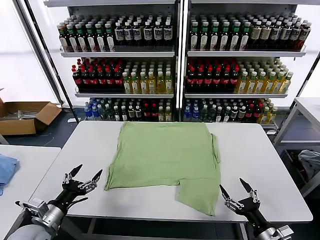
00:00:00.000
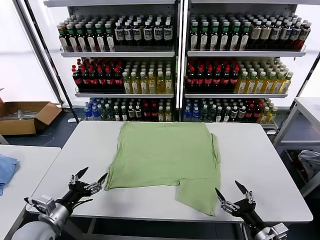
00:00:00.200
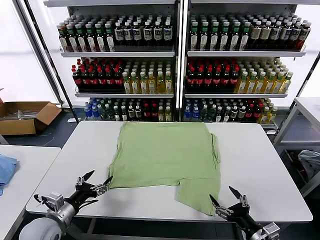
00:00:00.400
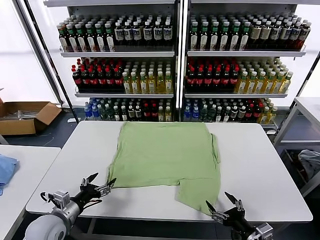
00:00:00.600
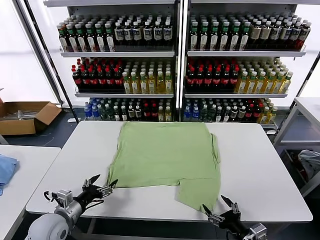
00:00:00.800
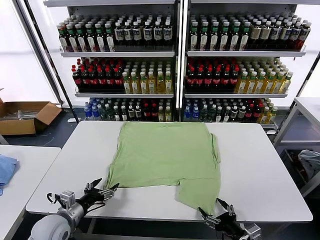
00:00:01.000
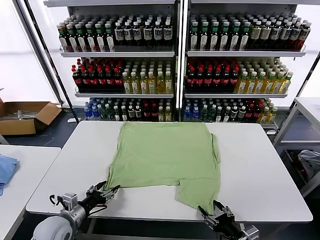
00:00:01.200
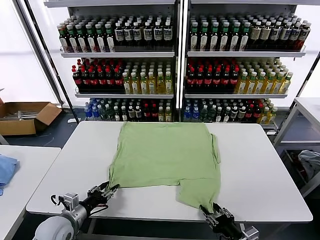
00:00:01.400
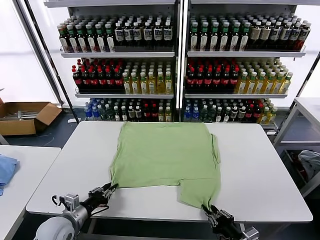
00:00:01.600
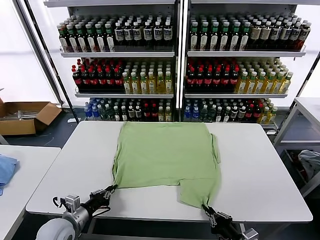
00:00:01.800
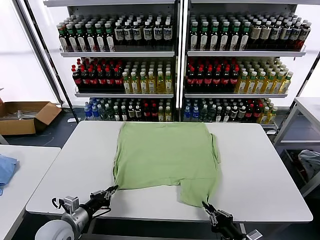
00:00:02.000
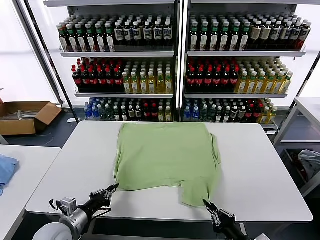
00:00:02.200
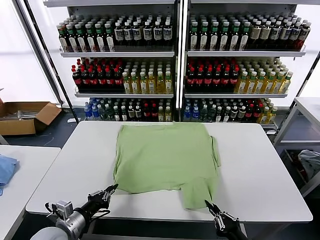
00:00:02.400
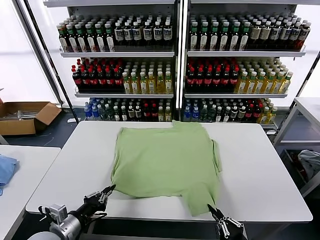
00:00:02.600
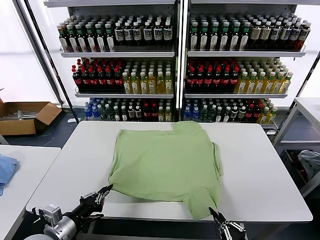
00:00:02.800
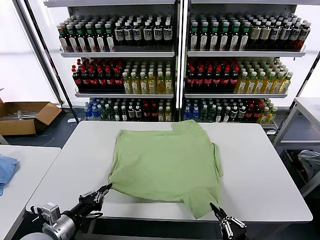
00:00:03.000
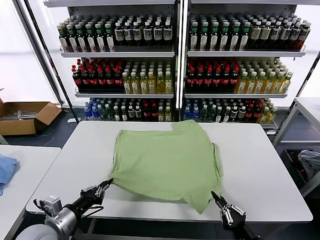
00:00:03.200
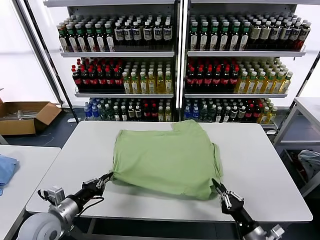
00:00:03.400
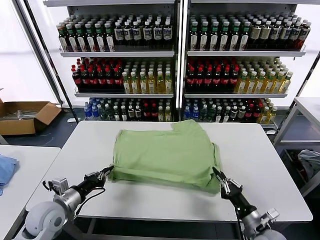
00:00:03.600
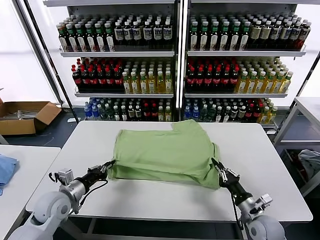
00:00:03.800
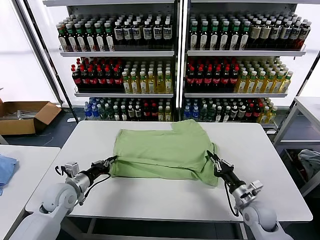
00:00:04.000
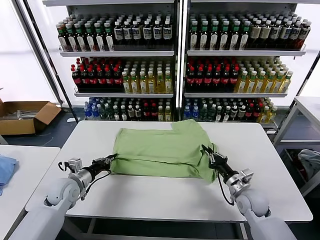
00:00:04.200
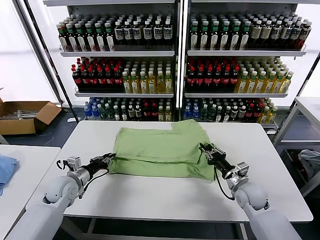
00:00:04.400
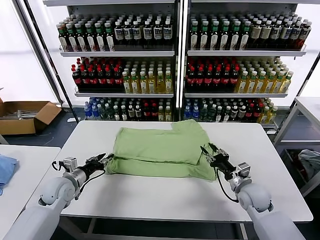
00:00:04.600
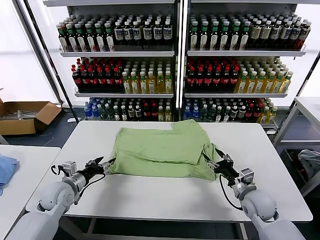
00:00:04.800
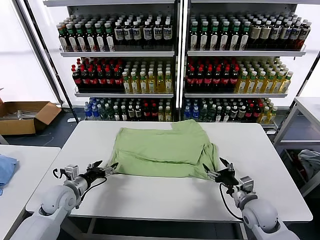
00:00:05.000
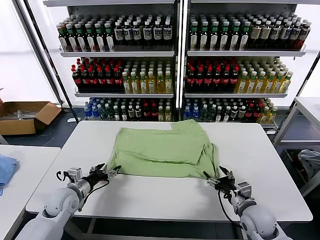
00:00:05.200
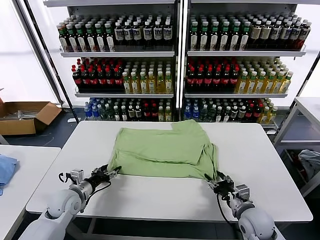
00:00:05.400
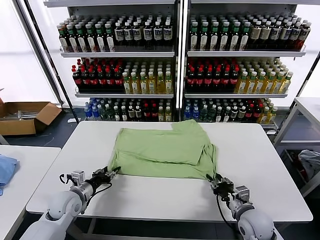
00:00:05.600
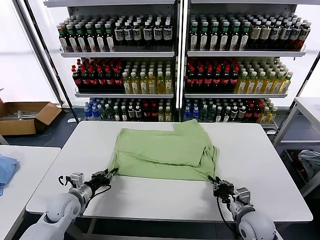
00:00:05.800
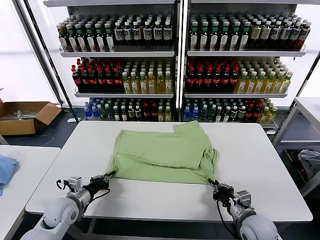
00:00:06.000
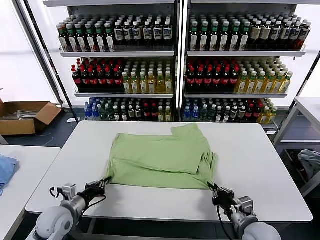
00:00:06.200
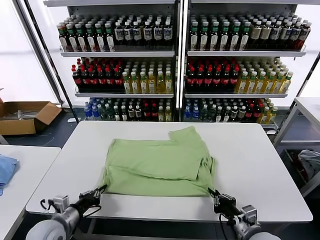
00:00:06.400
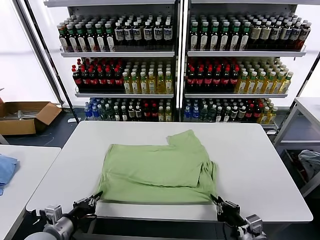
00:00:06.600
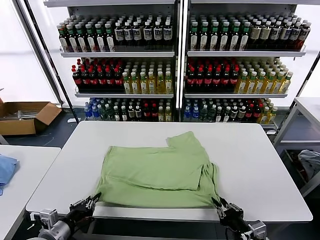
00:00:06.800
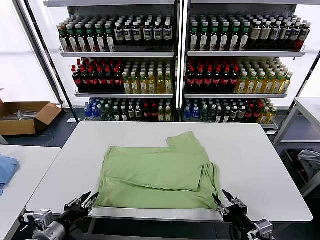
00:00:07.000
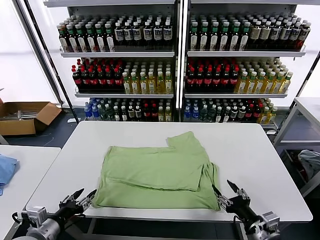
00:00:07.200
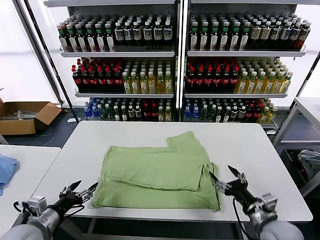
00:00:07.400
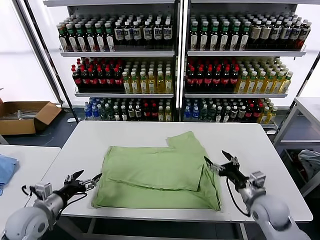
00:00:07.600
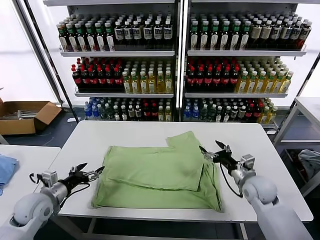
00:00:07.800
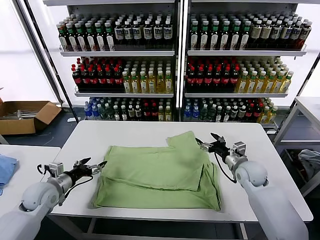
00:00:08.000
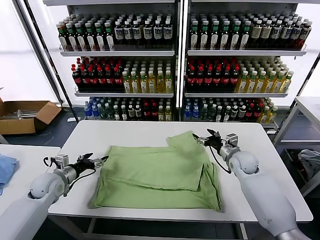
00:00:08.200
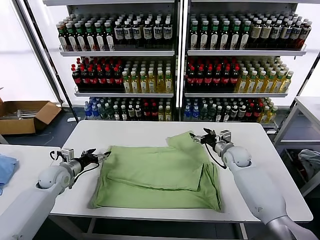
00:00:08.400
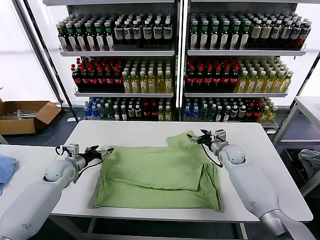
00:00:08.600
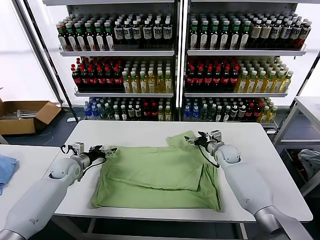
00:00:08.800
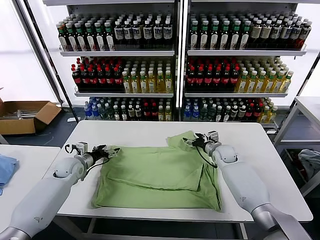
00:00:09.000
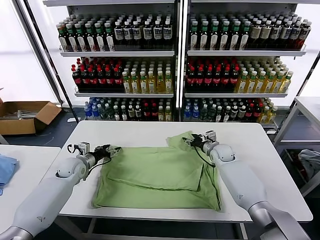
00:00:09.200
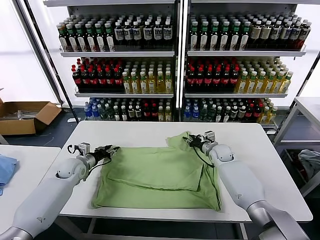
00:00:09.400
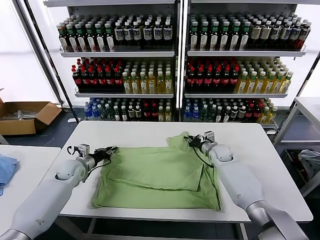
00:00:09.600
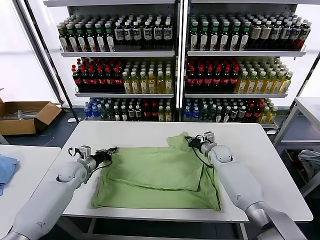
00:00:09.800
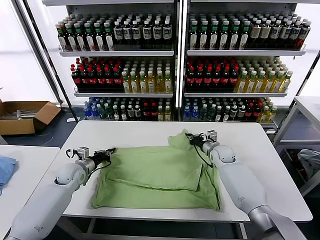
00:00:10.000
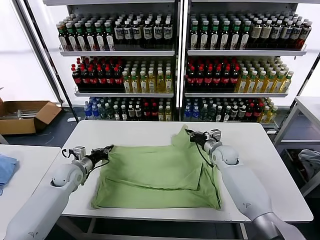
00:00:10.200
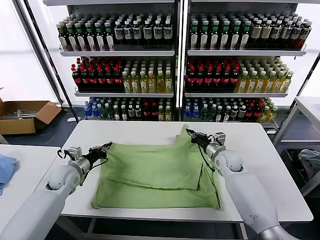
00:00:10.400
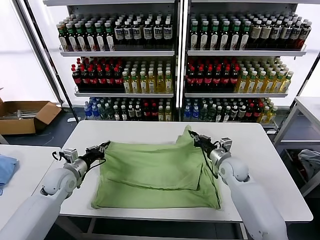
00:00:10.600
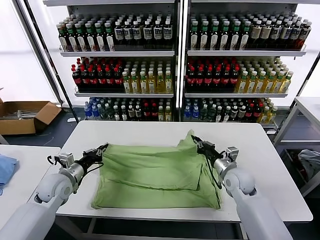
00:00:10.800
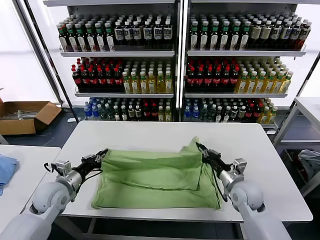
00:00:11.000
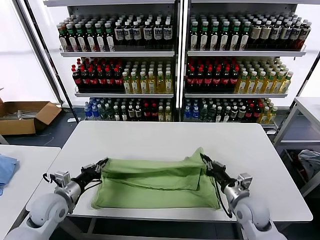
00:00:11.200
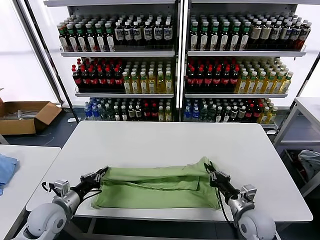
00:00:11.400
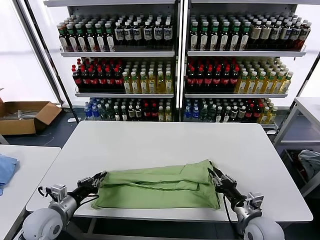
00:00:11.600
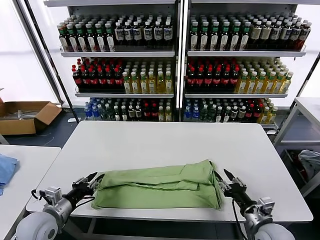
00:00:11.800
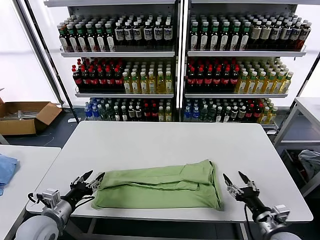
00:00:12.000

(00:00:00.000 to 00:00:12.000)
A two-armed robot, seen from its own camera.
Task of the whole recording: fold and organize the clothes.
Step, 00:00:00.000 - 00:00:01.800: use both grippers simultaneously to clamp the lower edge of the clothing fabric.
Step, 00:00:02.000 - 00:00:04.600: use both grippers to drag the lower edge of the fabric forward and fold it over the upper edge.
Step, 00:00:04.800 - 00:00:06.800: Drag the clothes downward with both gripper.
Step, 00:00:07.200 - 00:00:09.800: use both grippers simultaneously to clamp the upper edge of the clothing fabric.
Step, 00:00:10.000 - 00:00:11.600: use both grippers to drag the upper edge of the fabric backward and fold it over the lower edge.
00:00:01.600 - 00:00:03.000: The left gripper is displaced upward and backward by roughly 10 cm.
00:00:03.000 - 00:00:04.400: The two grippers go approximately 20 cm forward. The right gripper opens up.
00:00:04.400 - 00:00:06.000: The right gripper shifts approximately 10 cm backward, and opens, then closes once more. The left gripper heads backward, covering roughly 5 cm, and opens, then closes again.
00:00:06.000 - 00:00:07.600: The left gripper shifts approximately 10 cm upward and backward, and opens. Meanwhile the right gripper shifts some 10 cm forward, and opens.
00:00:07.600 - 00:00:09.000: The grippers both shift forward by about 20 cm.
00:00:09.000 - 00:00:10.400: The left gripper changes place by roughly 5 cm, and closes its fingers. Meanwhile the right gripper is displaced backward by roughly 5 cm, and closes up.
00:00:10.400 - 00:00:12.000: The left gripper moves backward, roughly 20 cm, and opens its fingers. The right gripper moves backward, about 30 cm, and opens.

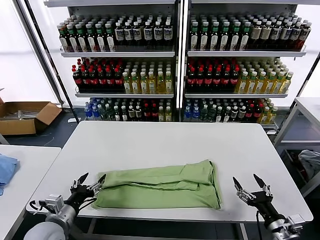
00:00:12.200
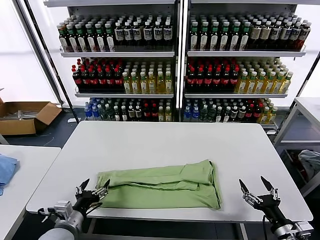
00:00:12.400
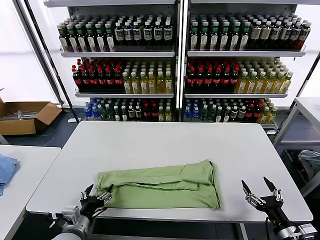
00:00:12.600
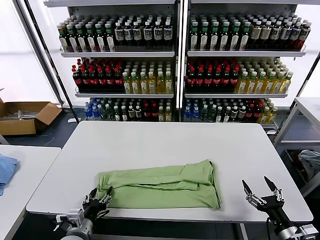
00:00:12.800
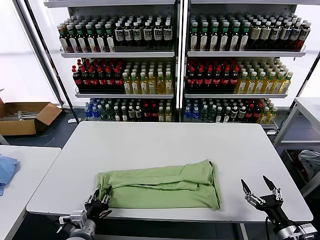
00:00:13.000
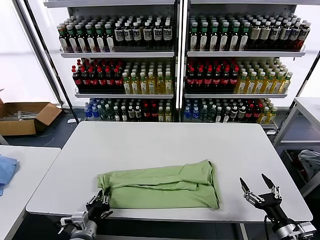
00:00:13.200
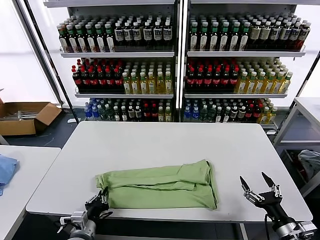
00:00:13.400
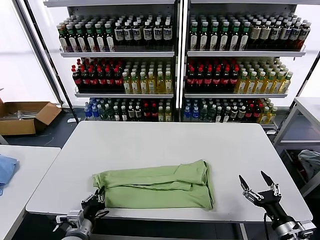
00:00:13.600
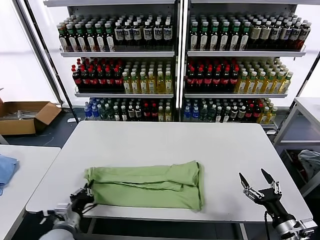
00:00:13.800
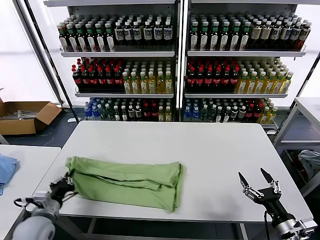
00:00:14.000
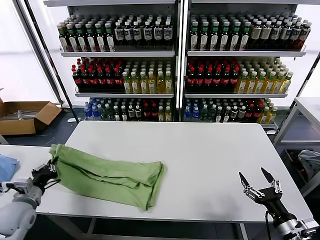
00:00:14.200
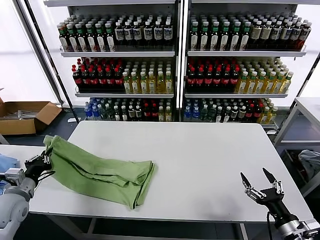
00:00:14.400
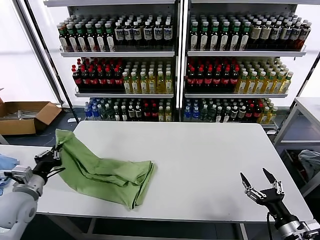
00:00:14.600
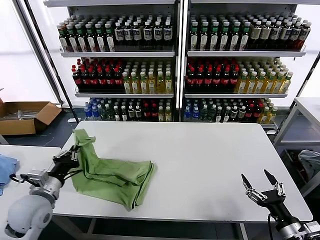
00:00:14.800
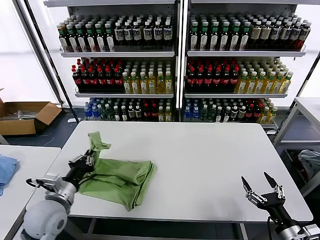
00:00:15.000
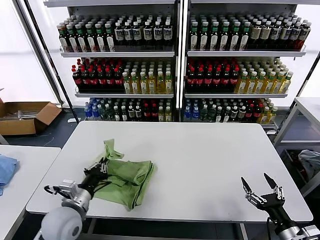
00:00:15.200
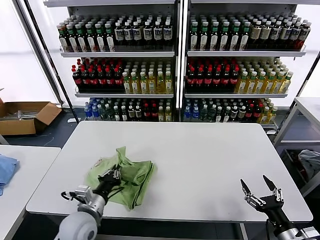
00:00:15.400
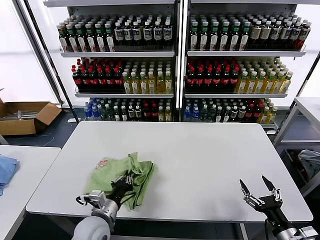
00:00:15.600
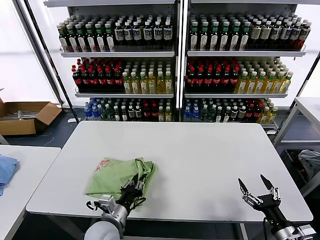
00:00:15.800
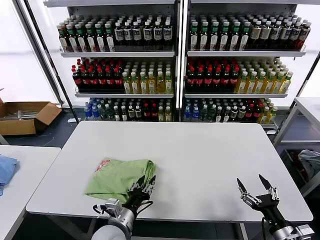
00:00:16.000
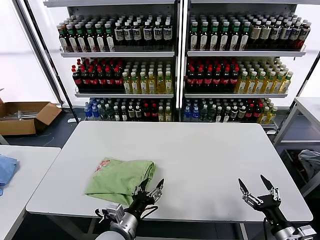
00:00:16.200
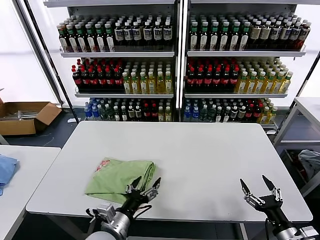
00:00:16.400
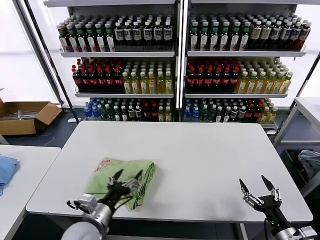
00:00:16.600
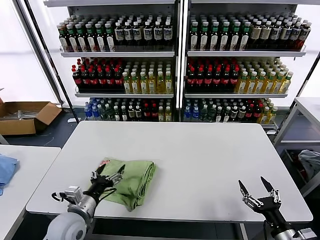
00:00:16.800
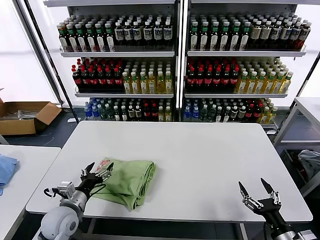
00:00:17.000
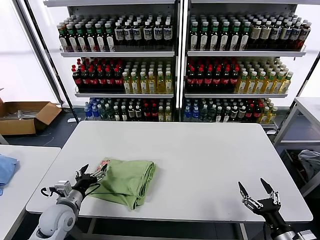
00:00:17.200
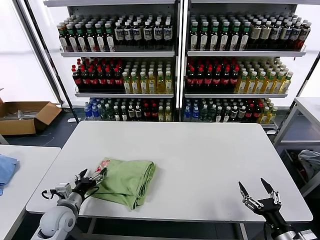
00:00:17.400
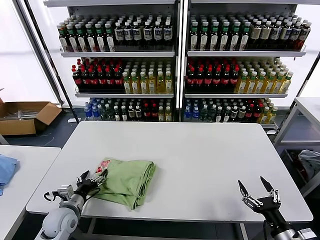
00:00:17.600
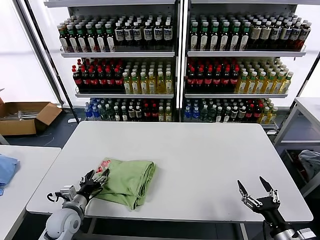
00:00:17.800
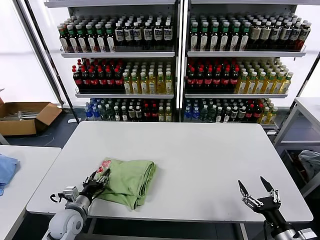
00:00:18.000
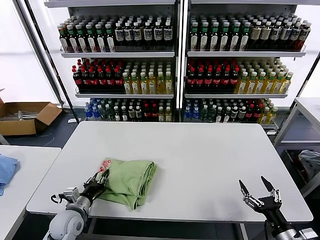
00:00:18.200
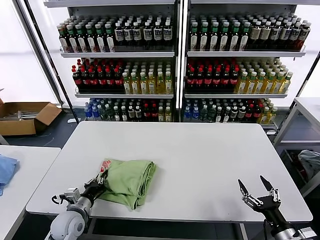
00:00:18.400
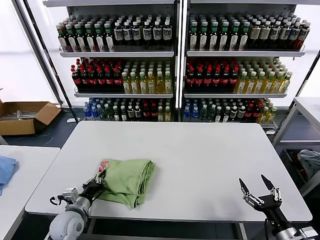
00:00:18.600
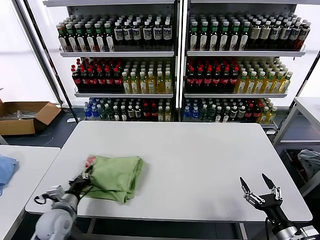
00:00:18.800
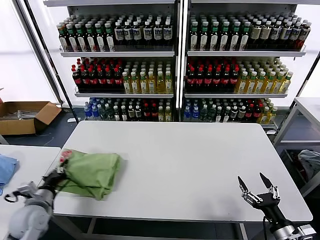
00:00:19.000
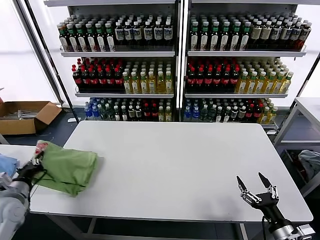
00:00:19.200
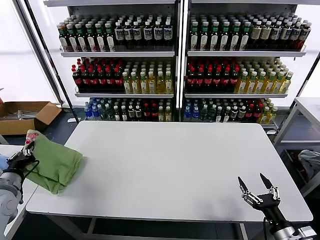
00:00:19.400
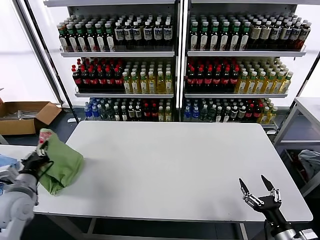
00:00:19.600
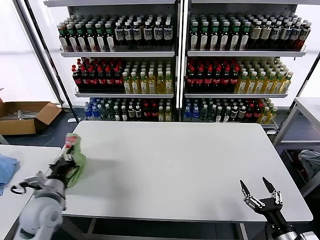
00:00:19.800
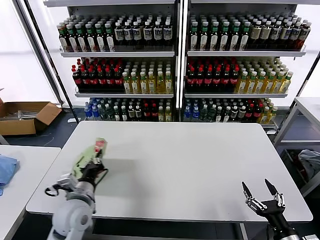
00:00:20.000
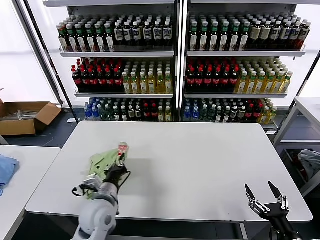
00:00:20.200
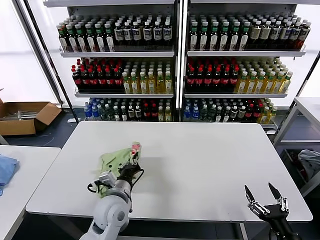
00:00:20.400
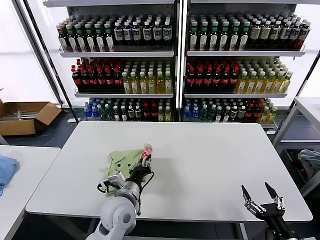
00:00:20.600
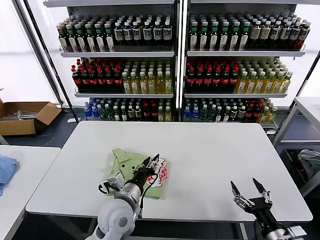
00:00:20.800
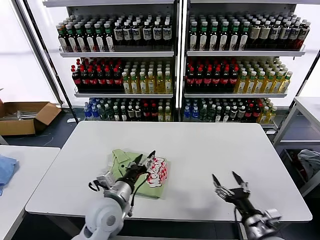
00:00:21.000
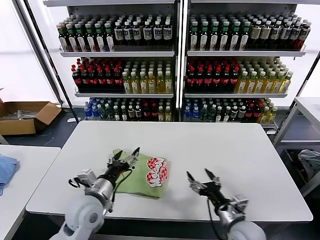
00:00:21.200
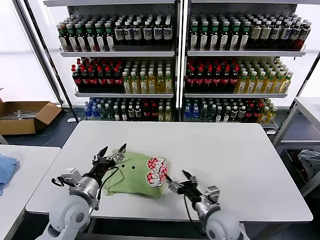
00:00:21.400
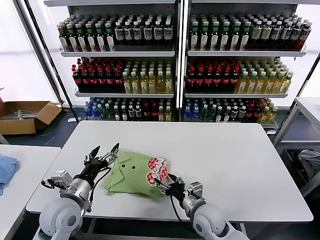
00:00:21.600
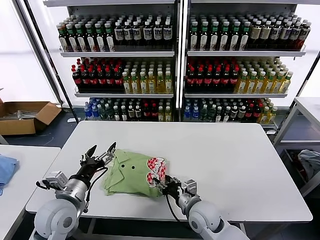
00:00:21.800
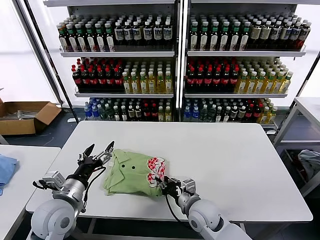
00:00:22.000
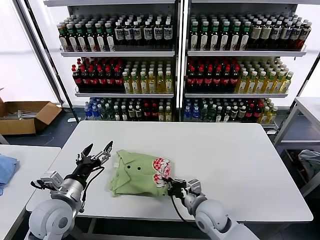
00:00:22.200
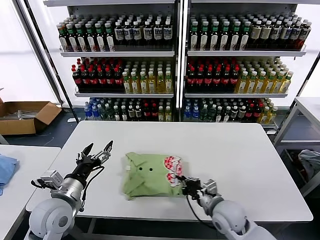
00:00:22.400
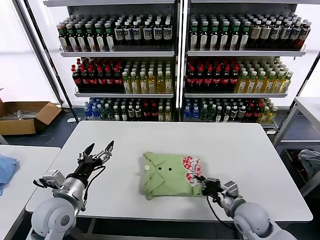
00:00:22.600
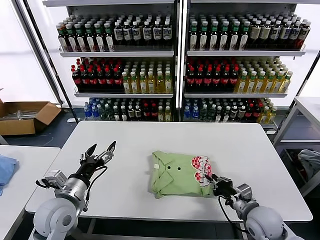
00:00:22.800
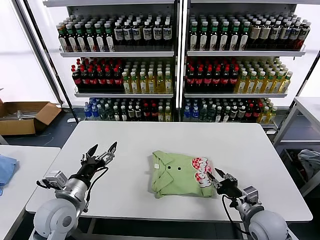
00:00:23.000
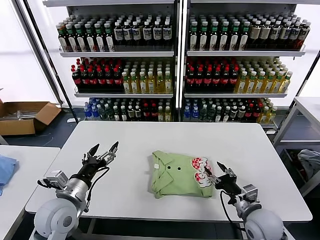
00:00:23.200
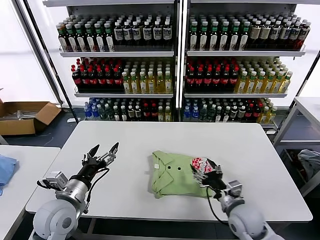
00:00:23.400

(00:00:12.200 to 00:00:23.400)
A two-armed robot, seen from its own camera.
Task of the whole recording: fold and organize the clothes.
Step, 00:00:12.200 - 00:00:13.200: use the left gripper to clamp the left edge of the fabric.
Step, 00:00:13.400 - 00:00:16.000: use the left gripper to drag the left edge of the fabric to the left and folds it over the right edge.
Step, 00:00:16.400 - 00:00:20.800: Flip the folded clothes over with left gripper.
00:00:12.200 - 00:00:13.800: The left gripper is displaced downward by about 5 cm, and closes its fingers.
00:00:13.800 - 00:00:15.400: The left gripper goes about 5 cm upward, and moves roughly 15 cm to the left and comes back.
00:00:15.400 - 00:00:17.000: The left gripper reaches some 10 cm to the right, then returns, and opens its fingers.
00:00:17.000 - 00:00:18.600: The left gripper heads downward, covering some 5 cm, and closes up.
00:00:18.600 - 00:00:20.200: The left gripper heads to the right and upward, covering roughly 15 cm.
00:00:20.200 - 00:00:21.800: The right gripper shifts some 30 cm to the left and forward, and closes its fingers. The left gripper travels to the left by some 10 cm, and opens up.
00:00:21.800 - 00:00:23.400: The right gripper goes roughly 15 cm to the right, and closes and opens again.
